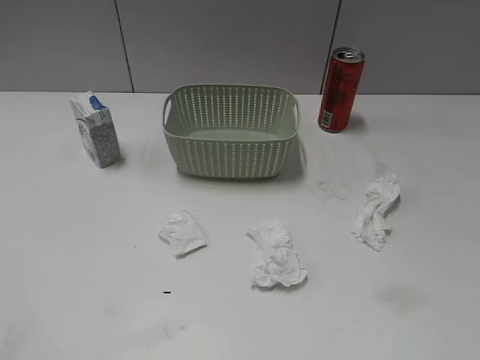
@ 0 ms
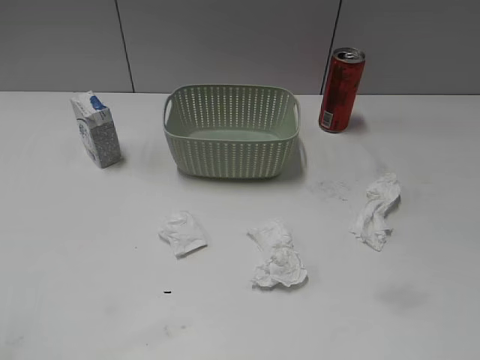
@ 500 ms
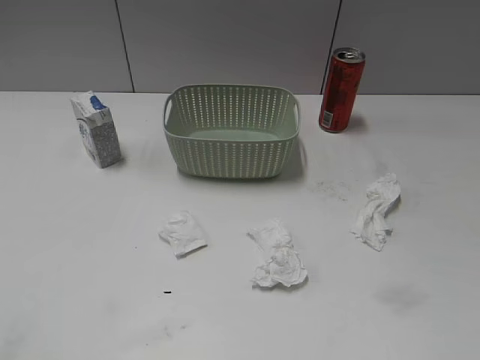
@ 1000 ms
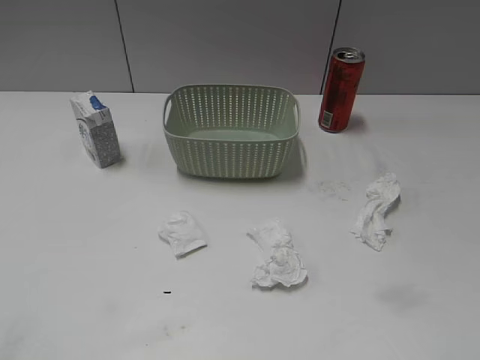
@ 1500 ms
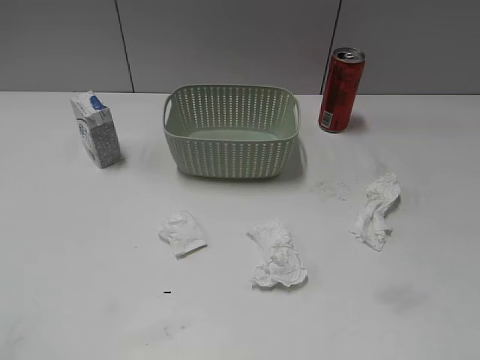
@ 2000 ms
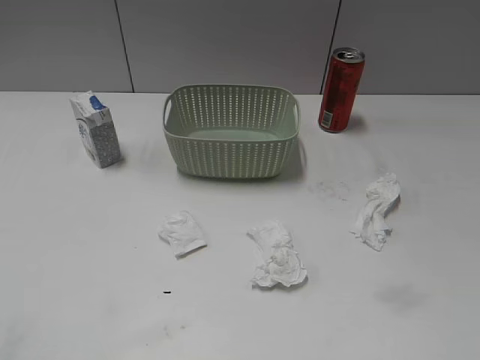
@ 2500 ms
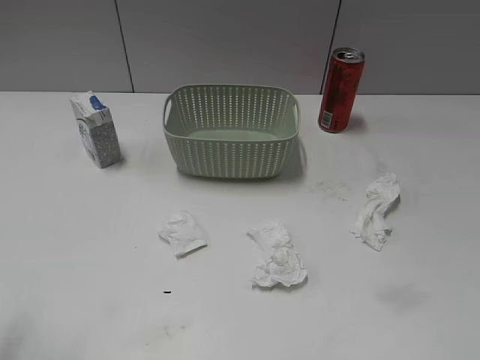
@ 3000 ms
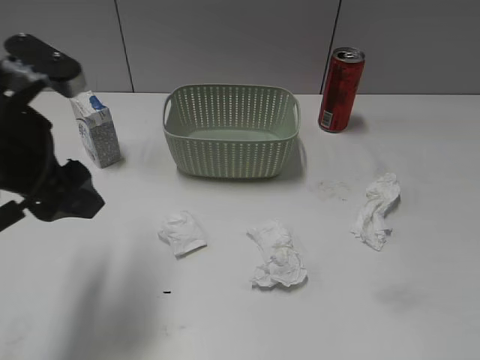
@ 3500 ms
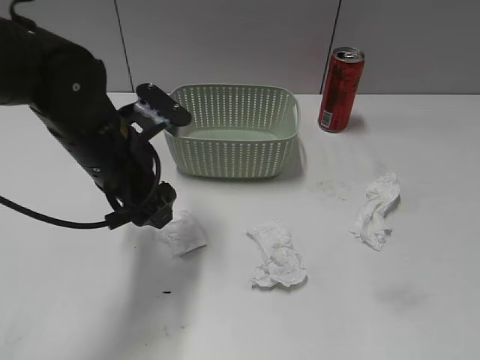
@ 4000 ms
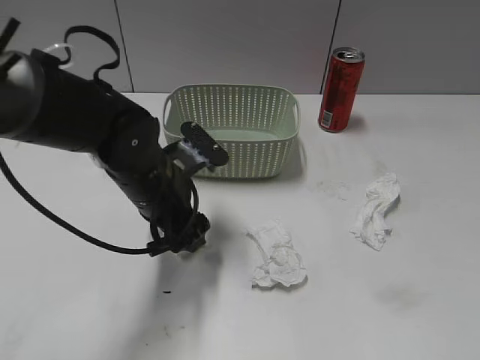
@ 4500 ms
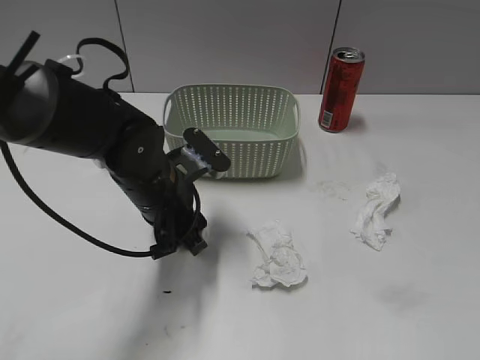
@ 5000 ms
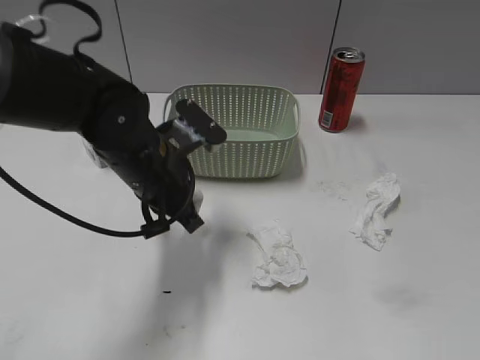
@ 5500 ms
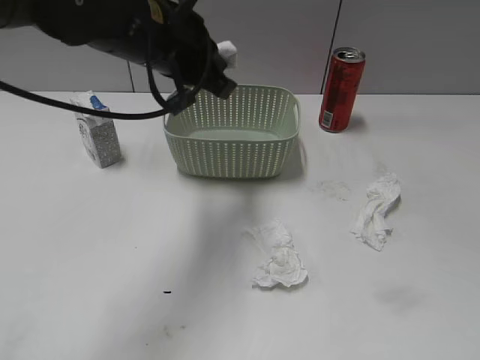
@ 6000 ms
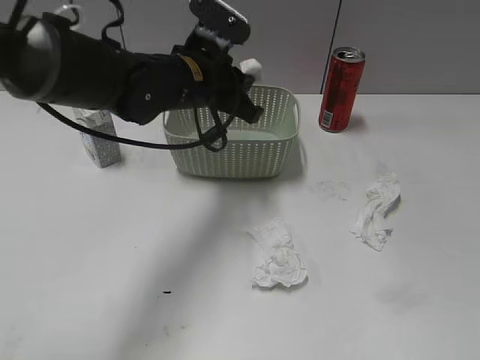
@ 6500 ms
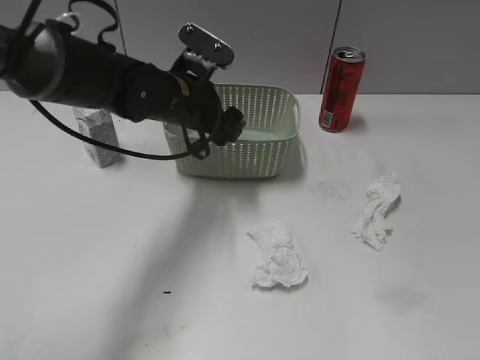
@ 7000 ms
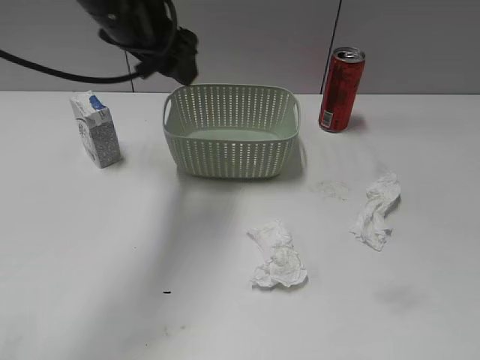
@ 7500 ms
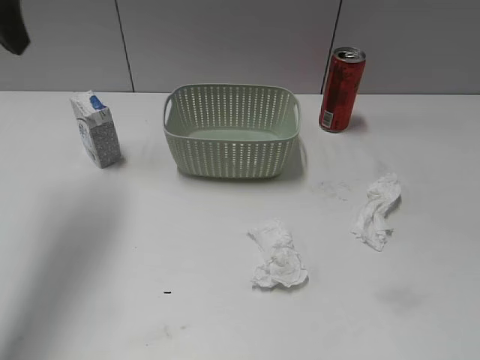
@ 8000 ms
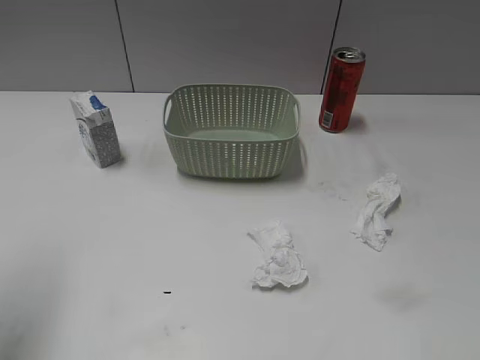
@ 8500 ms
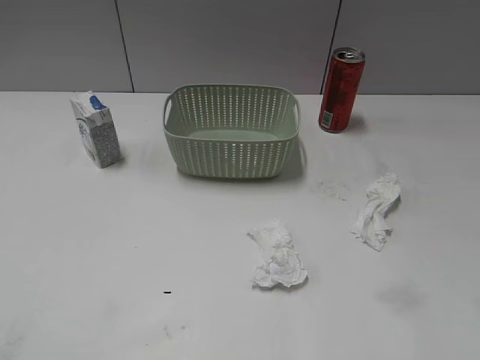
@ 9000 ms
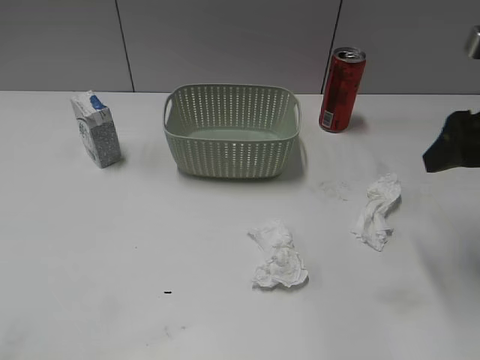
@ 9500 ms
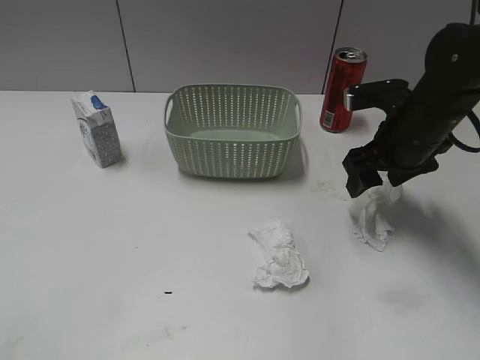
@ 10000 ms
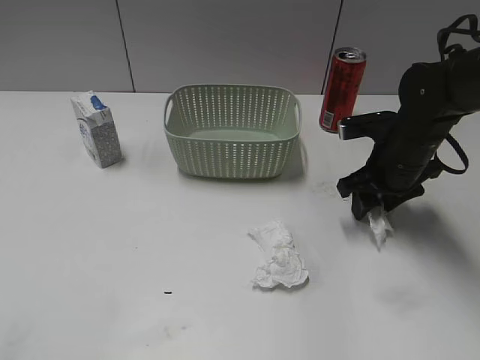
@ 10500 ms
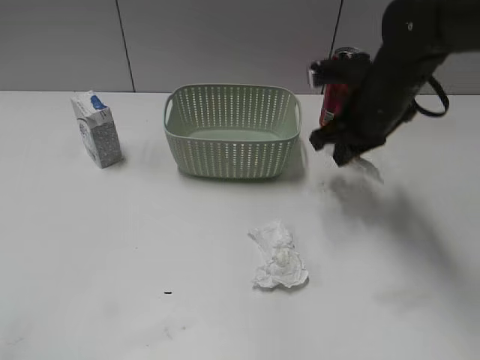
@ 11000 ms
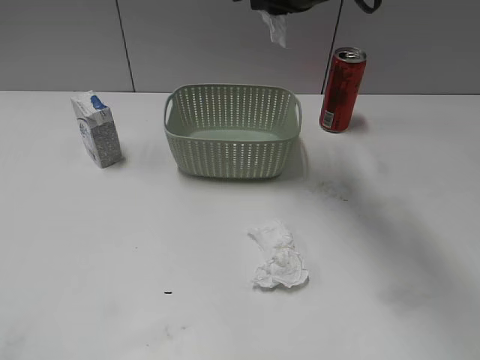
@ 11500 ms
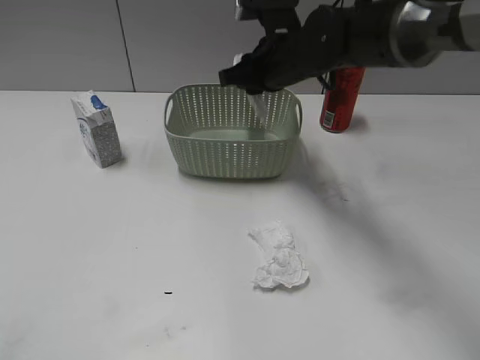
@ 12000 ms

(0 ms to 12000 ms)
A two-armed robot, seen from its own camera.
Step, 3000 ms - 5000 ms: Grasp the waste paper with left gripper.
Step, 5500 ms - 7000 ms: Place the waste paper in the basket with left gripper.
Step, 7500 ms - 10500 ms: Grasp the waste paper with right gripper.
2000 ms - 4000 ms: The left gripper is displaced forward and to the right by approximately 35 cm.
4000 ms - 6000 ms: The left gripper goes about 10 cm upward, and closes.
6000 ms - 8000 ms: The left gripper heads to the left and upward, covering approximately 20 cm, and opens its fingers.
8000 ms - 10000 ms: The right gripper heads forward, covering roughly 35 cm. Meanwhile the left gripper is displaced backward by about 35 cm.
10000 ms - 12000 ms: The right gripper swings up and down, roughly 20 cm each way, with 2 reversals, and closes up.

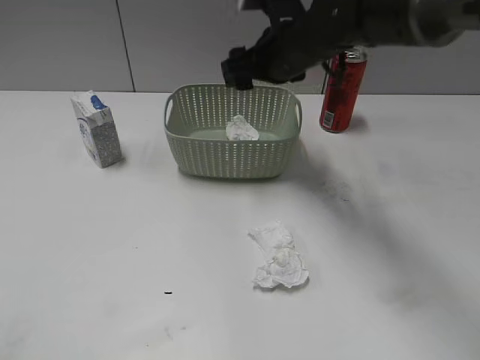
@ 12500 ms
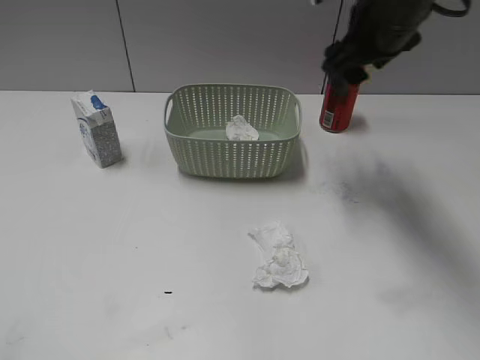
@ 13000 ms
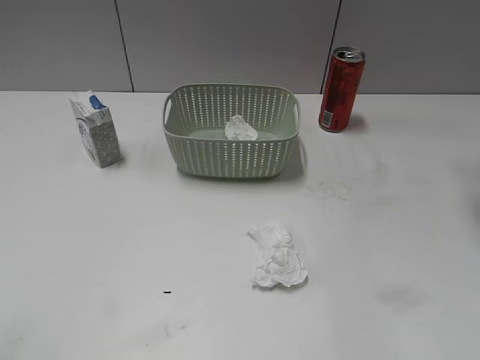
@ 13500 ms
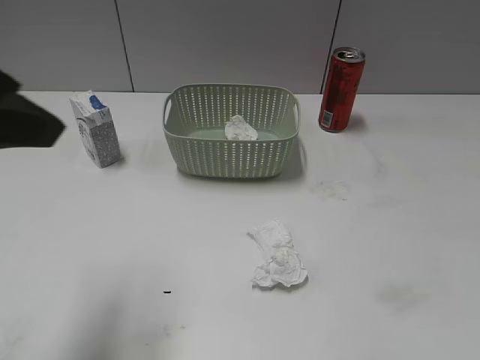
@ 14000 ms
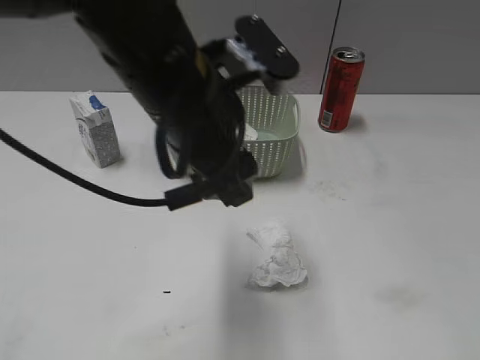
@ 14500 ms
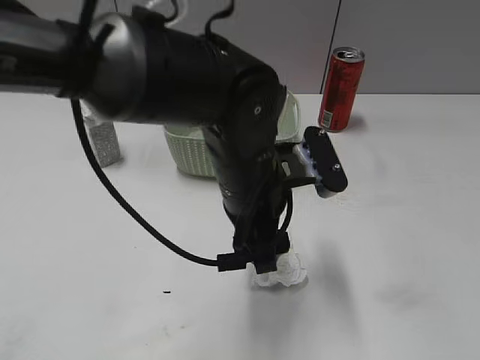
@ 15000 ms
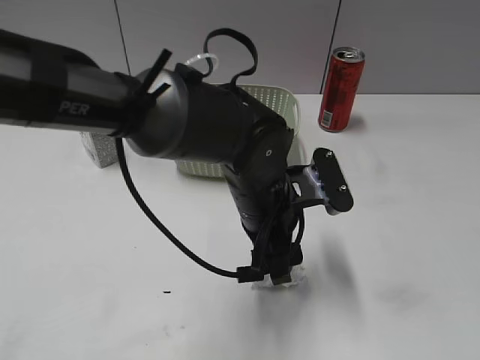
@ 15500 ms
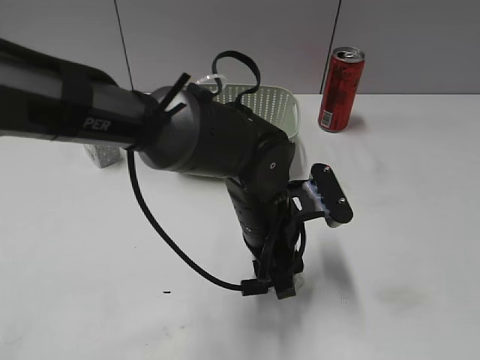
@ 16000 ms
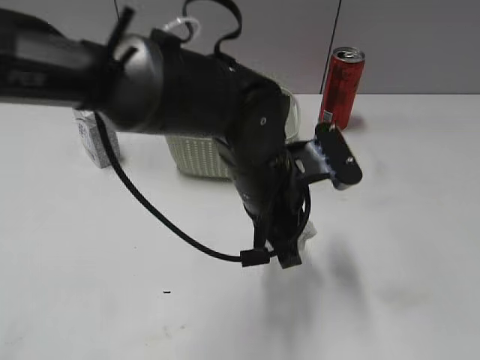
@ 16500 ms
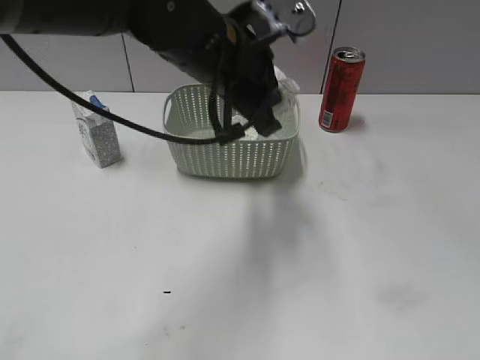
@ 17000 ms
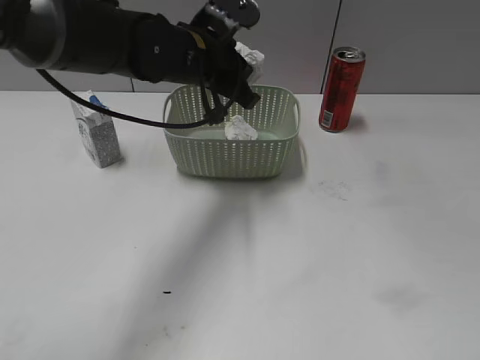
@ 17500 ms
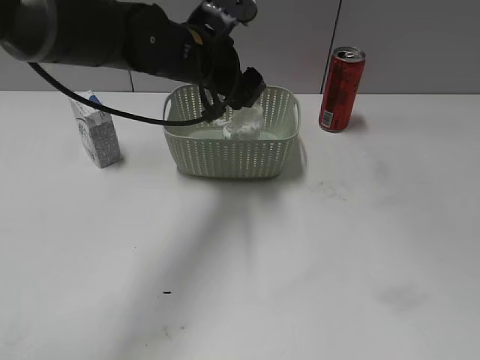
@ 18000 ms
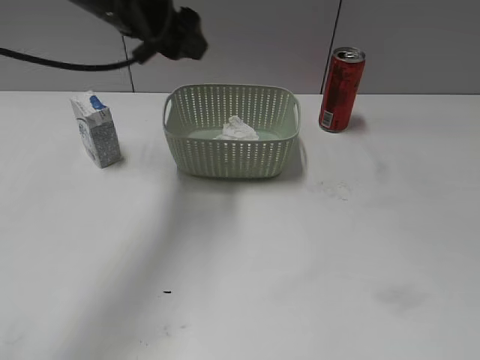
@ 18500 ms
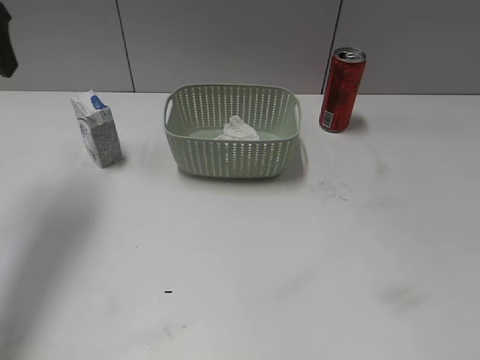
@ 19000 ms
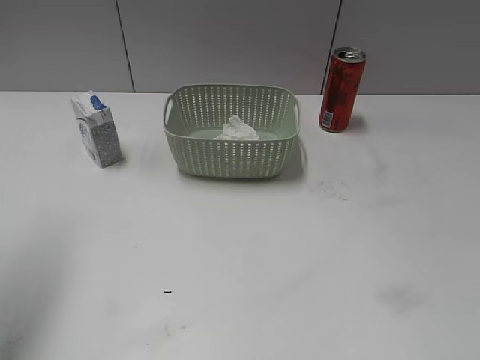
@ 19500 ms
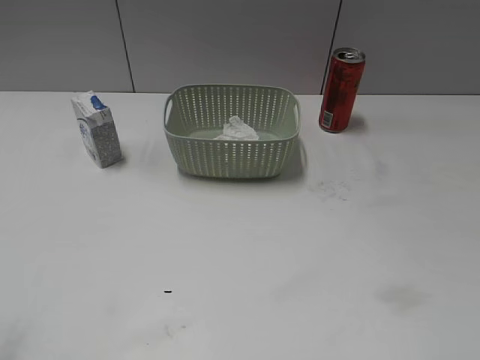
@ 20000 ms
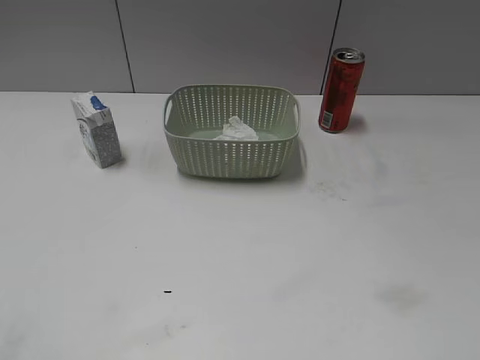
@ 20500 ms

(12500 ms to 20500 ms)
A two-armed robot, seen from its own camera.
Step, 12500 ms - 16500 ms: Grasp the waste paper with left gripper.
Step, 17000 ms - 18000 ms: Place the waste paper in the basket with left gripper.
12500 ms - 14500 ms: The left gripper heads to the right and forward, covering some 35 cm. The right gripper is displaced backward and to the right by roughly 40 cm.
14500 ms - 16500 ms: The left gripper is displaced downward and to the right by roughly 15 cm, and closes up. Meanwhile the right gripper shifts some 5 cm backward.
16500 ms - 18500 ms: The left gripper moves to the left, upward and forward, approximately 25 cm, and opens.
18500 ms - 20500 ms: The left gripper goes some 40 cm backward and to the left.

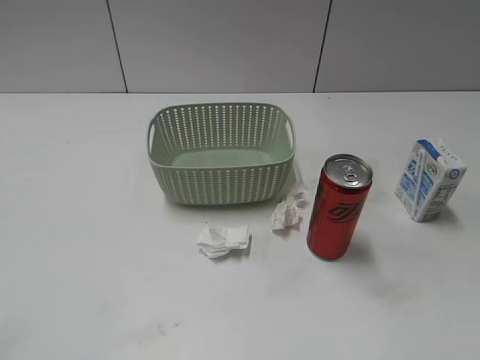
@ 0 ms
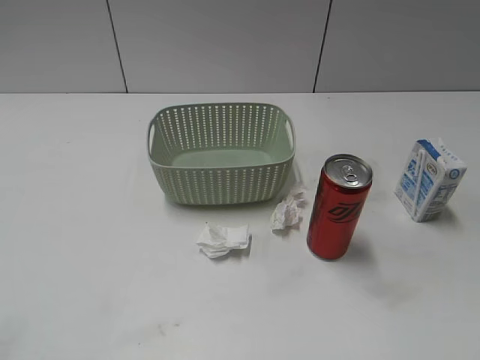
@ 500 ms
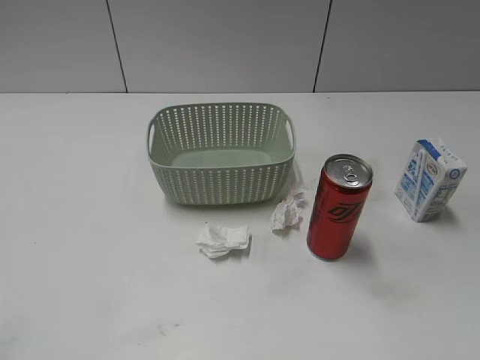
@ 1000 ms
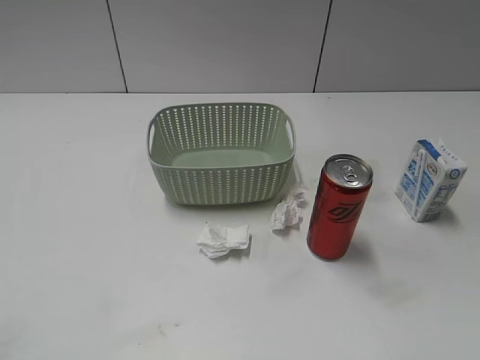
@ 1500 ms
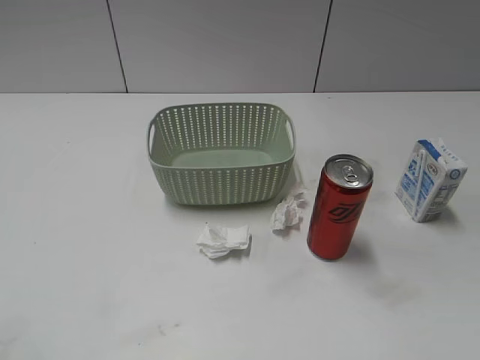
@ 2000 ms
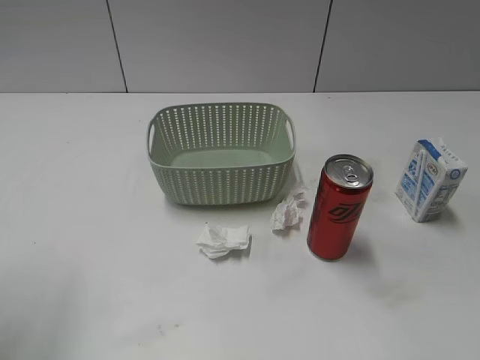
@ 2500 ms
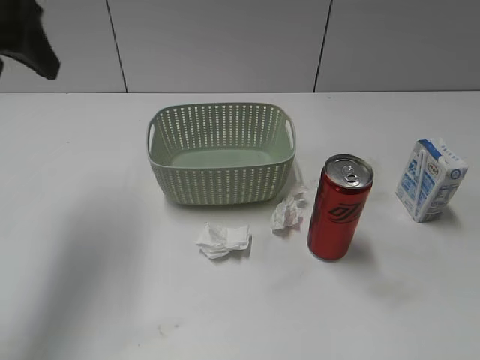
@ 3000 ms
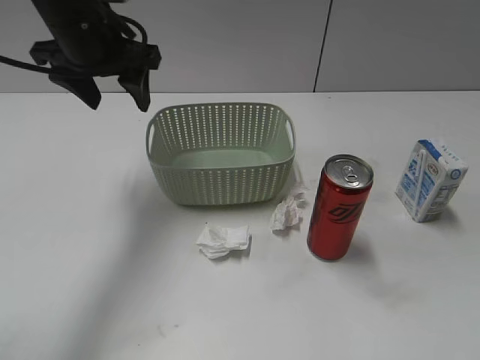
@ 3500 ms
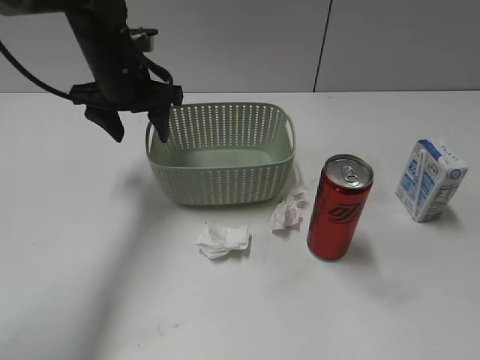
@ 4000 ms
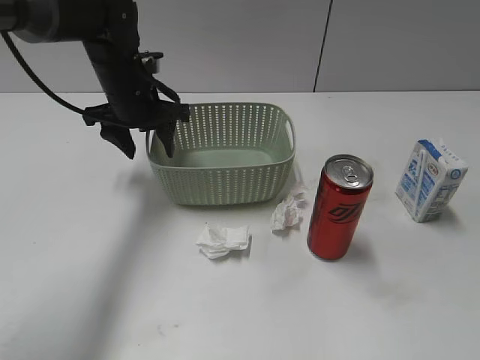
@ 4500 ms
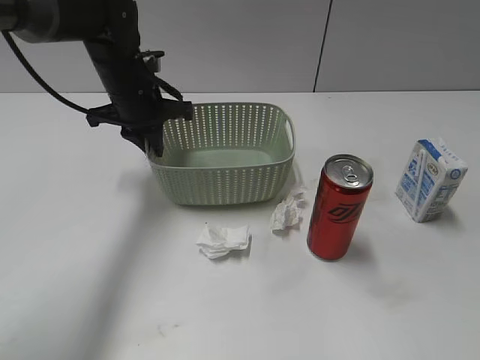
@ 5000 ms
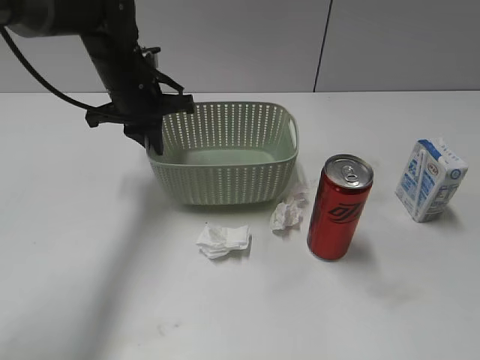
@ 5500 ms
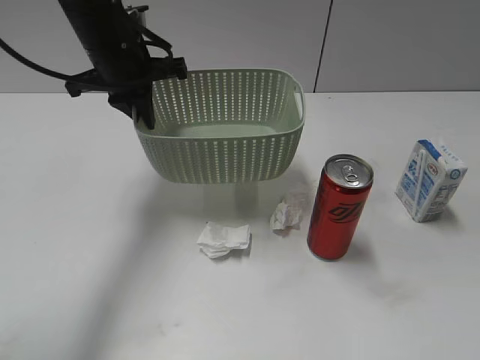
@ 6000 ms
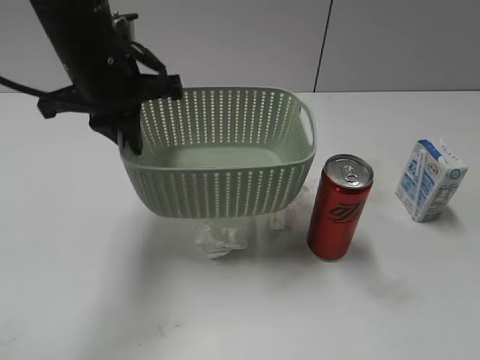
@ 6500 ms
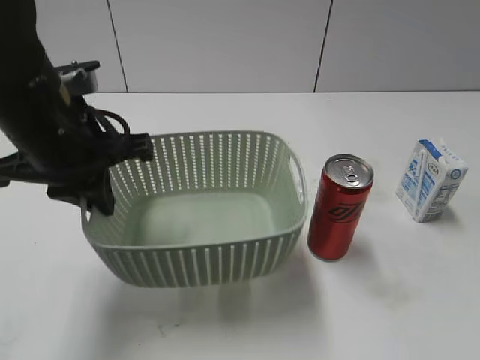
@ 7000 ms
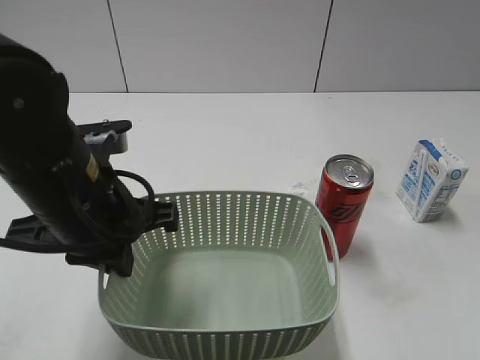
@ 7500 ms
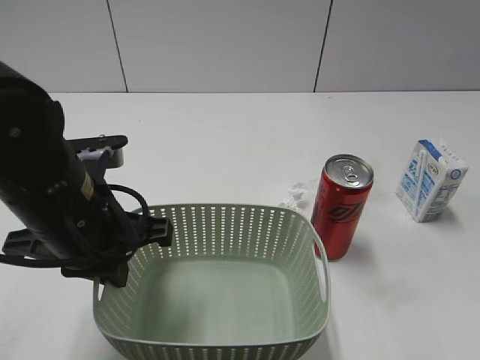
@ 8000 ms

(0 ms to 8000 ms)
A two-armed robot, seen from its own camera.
Step, 3000 ms - 5000 ms: Grasp the basket with left gripper.
2000 ms - 4000 ms: The left gripper heads forward and to the right, covering some 40 cm.
4000 ms - 6000 ms: The left gripper closes.
6000 ms - 8000 ms: The right gripper moves upward, roughly 5 cm; the left gripper moves backward, roughly 20 cm.
